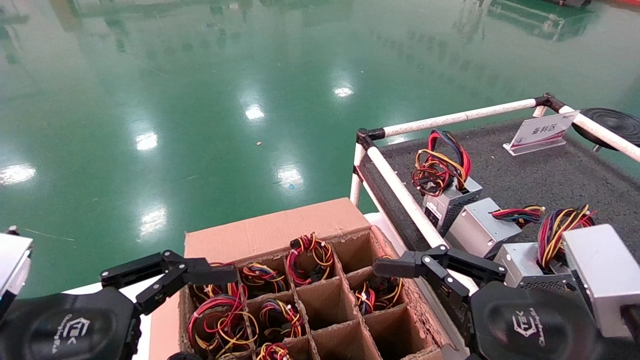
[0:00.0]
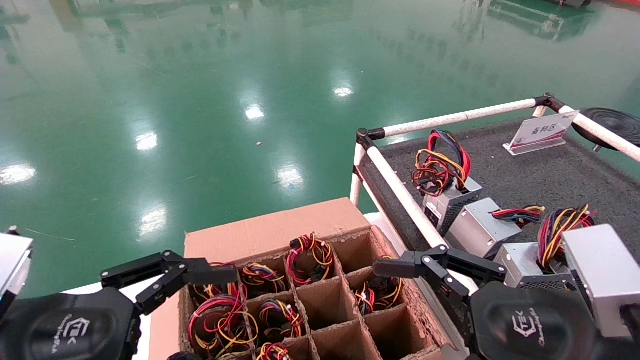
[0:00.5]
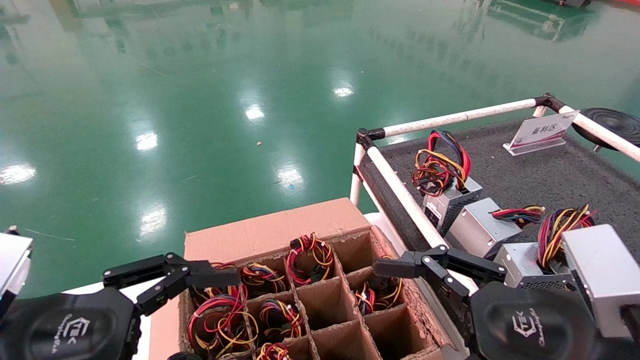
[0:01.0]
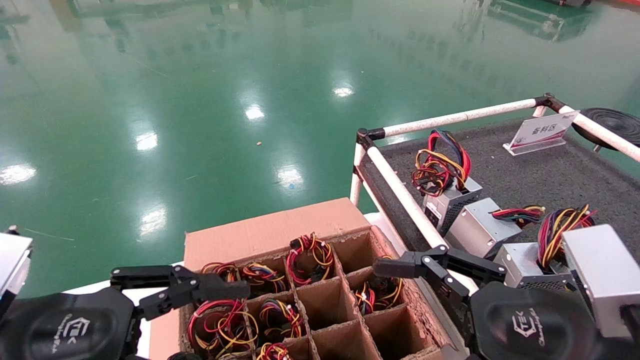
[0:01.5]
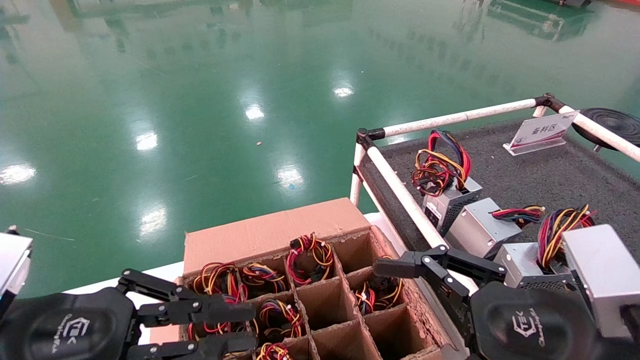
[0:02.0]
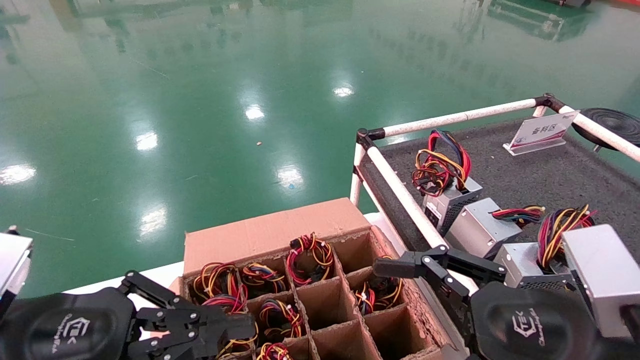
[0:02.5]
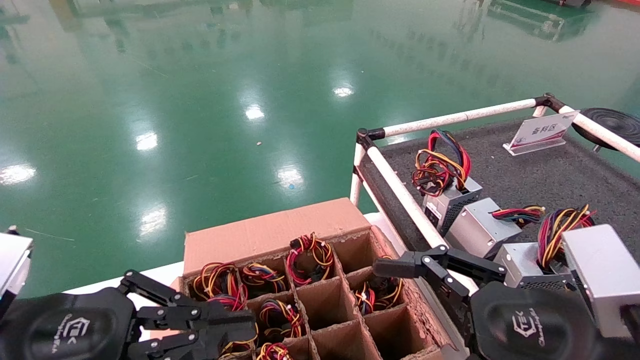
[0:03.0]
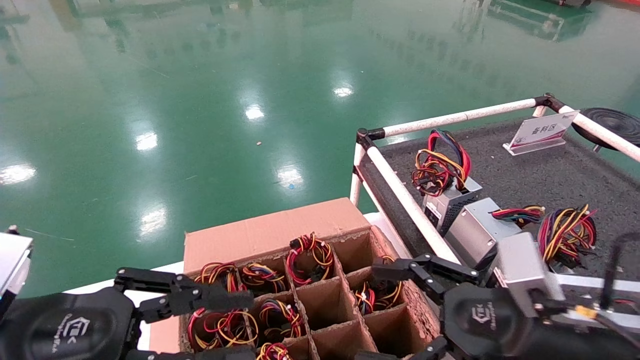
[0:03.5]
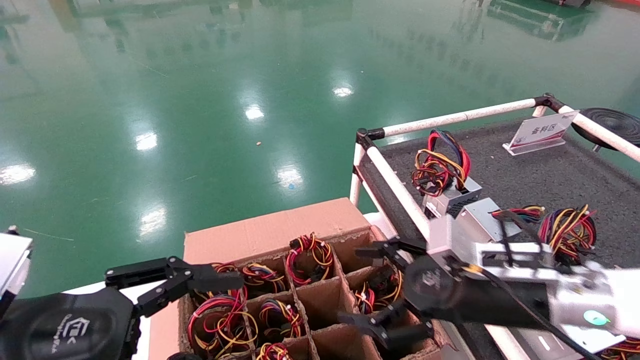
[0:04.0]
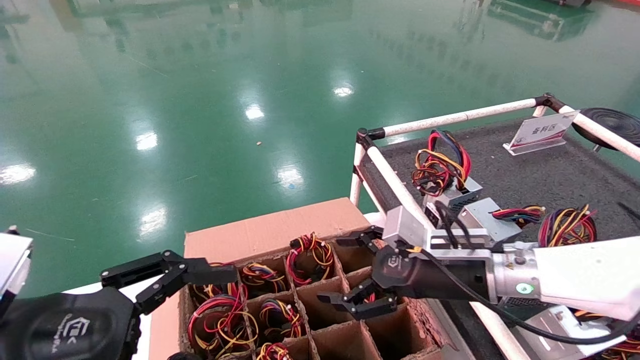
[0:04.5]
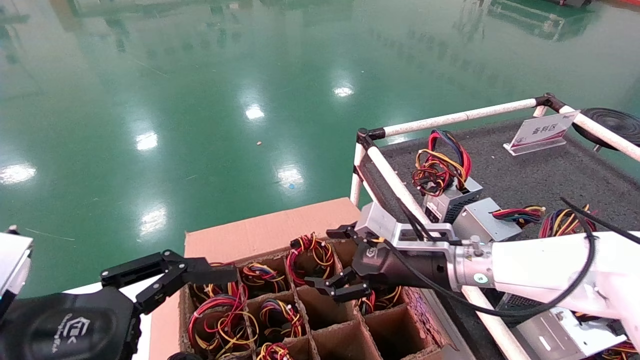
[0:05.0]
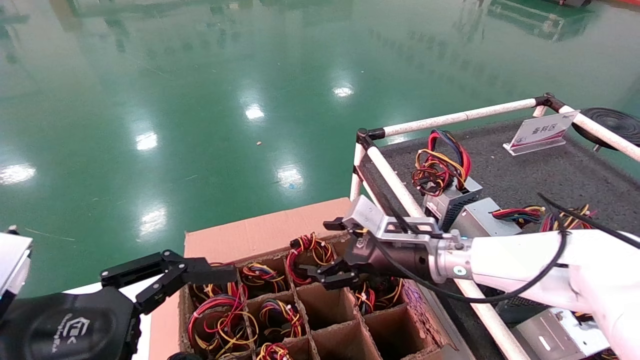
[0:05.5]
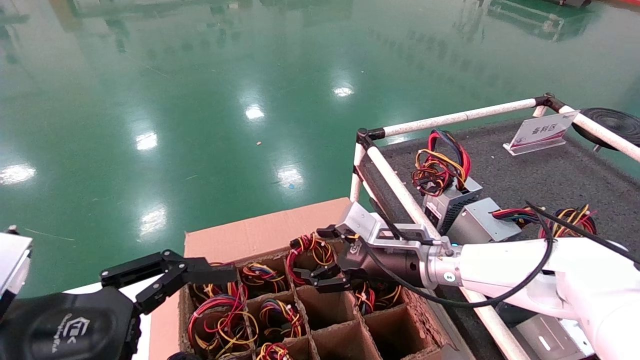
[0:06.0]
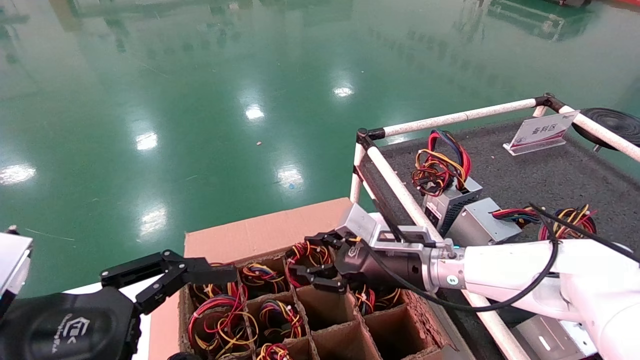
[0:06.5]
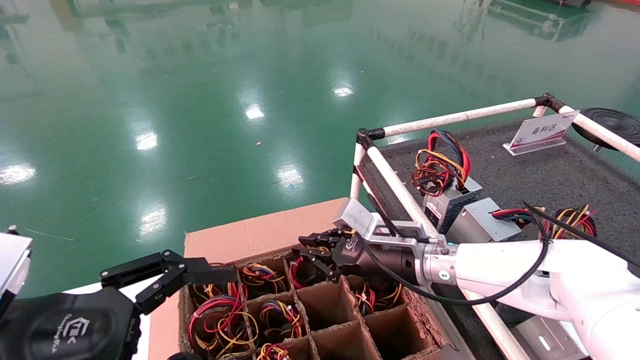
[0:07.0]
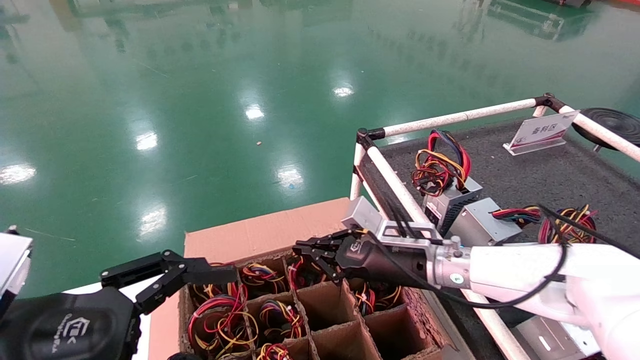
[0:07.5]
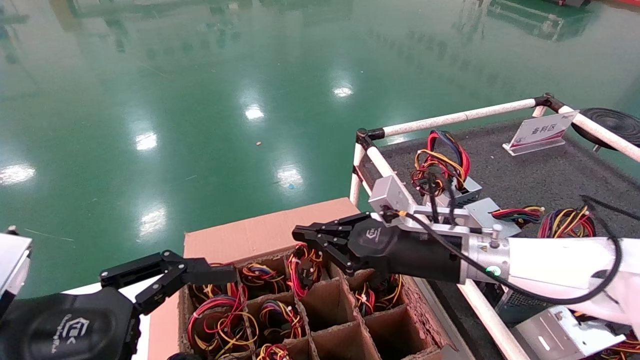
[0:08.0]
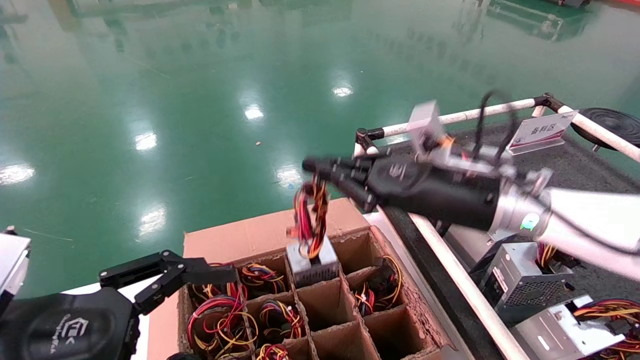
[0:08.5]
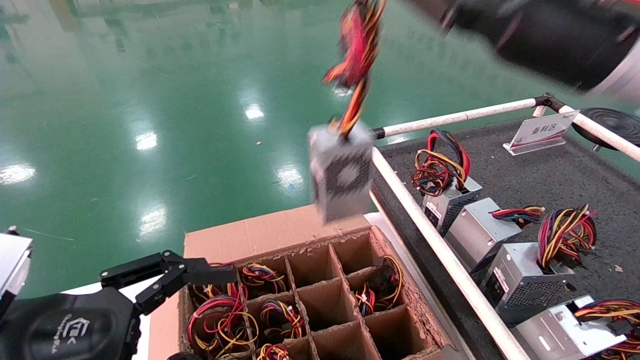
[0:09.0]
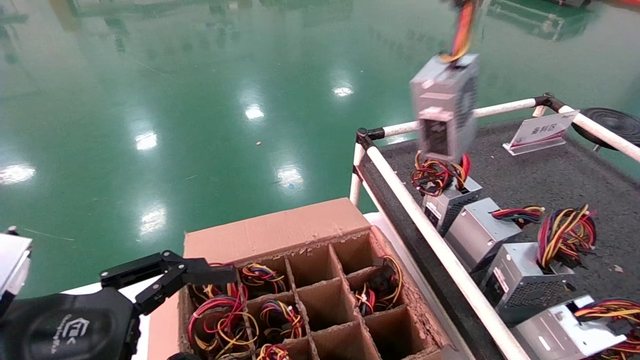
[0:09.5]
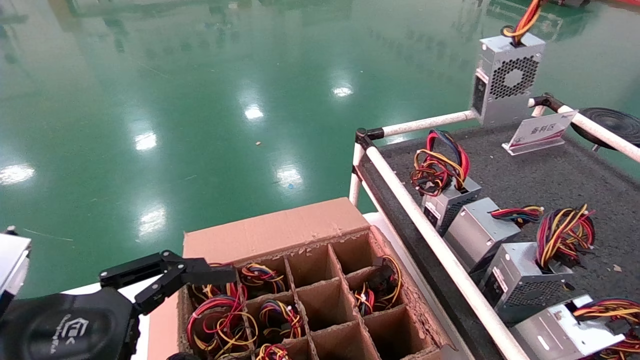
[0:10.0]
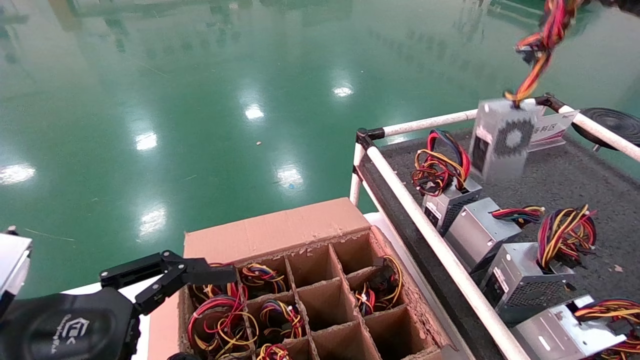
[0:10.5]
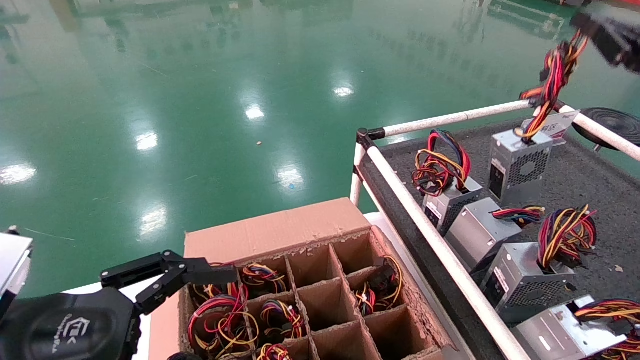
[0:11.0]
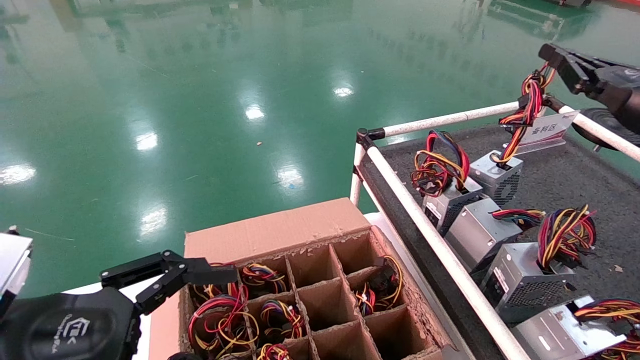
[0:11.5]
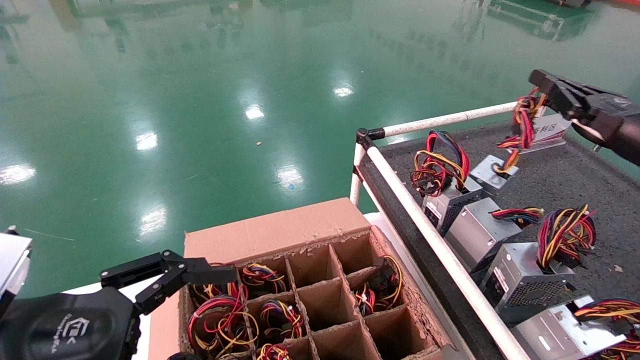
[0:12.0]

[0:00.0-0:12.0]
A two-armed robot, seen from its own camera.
Step, 0:03.5 to 0:07.0: Grab and lift the power supply from the large box.
0:00.0 to 0:02.0: The left gripper closes its fingers.
0:02.0 to 0:04.0: The right gripper is displaced forward by about 15 cm; the left gripper opens.
0:04.0 to 0:06.0: The right gripper travels forward and to the left by some 15 cm.
0:06.0 to 0:08.0: The right gripper changes place by approximately 5 cm, and closes.
0:08.0 to 0:10.0: The right gripper shifts approximately 35 cm upward and to the right.
0:10.0 to 0:12.0: The right gripper heads downward, covering approximately 20 cm.

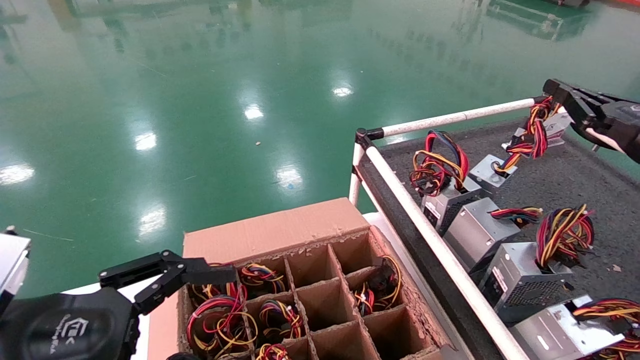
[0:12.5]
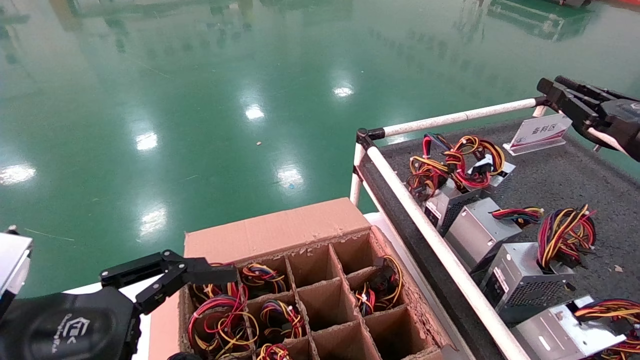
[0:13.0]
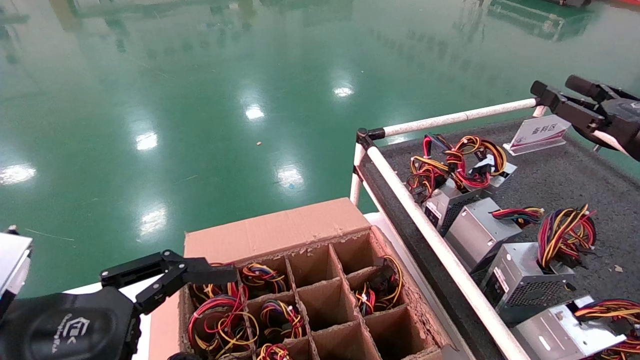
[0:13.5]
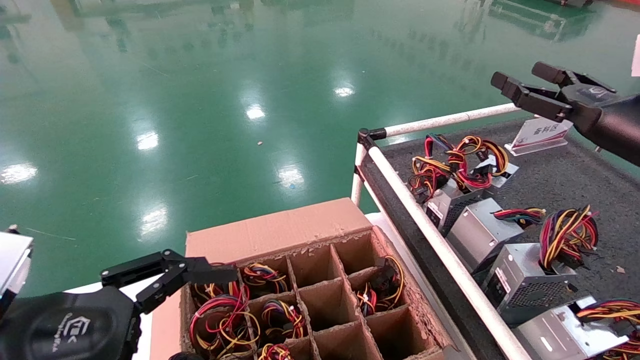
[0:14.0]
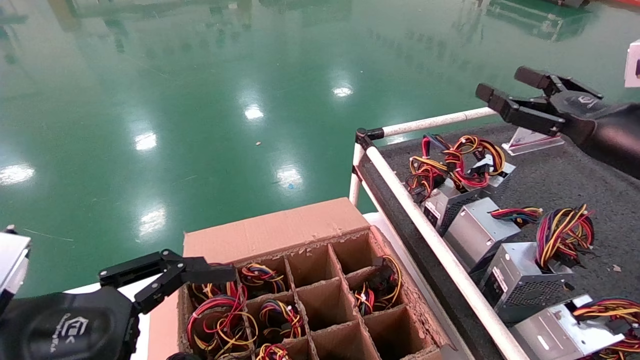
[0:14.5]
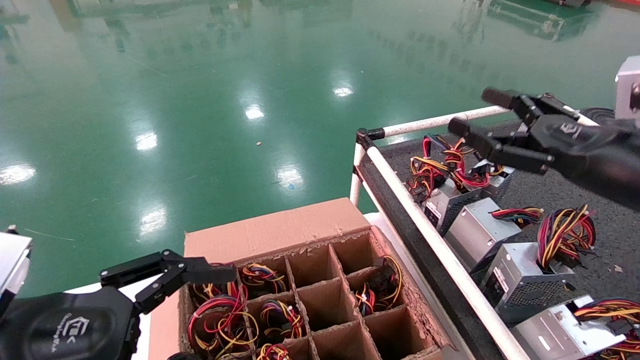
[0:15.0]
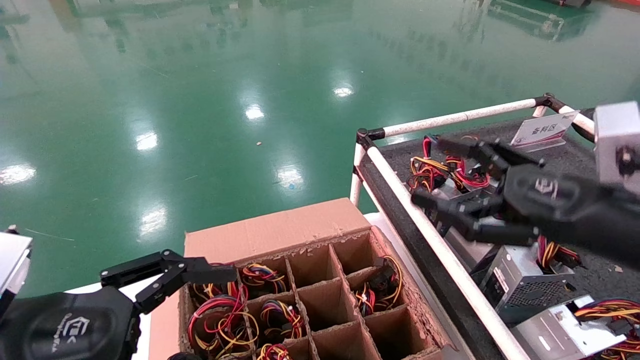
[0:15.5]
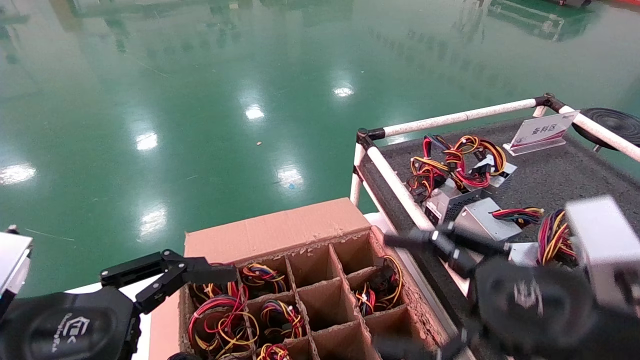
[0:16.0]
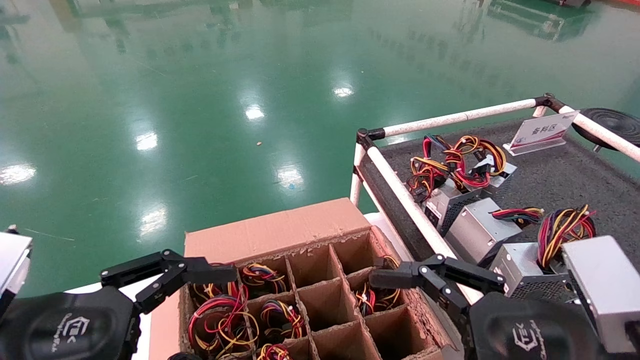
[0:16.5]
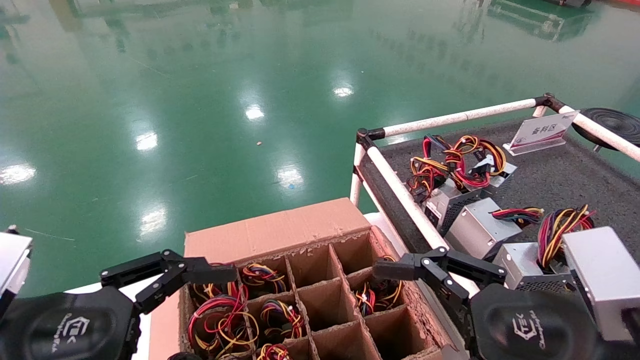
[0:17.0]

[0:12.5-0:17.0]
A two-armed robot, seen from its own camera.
0:12.5 to 0:14.5: The right gripper moves to the left, approximately 5 cm, and opens up.
0:14.5 to 0:17.0: The right gripper shifts approximately 25 cm backward, to the left and downward.
